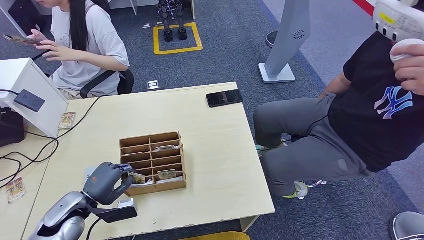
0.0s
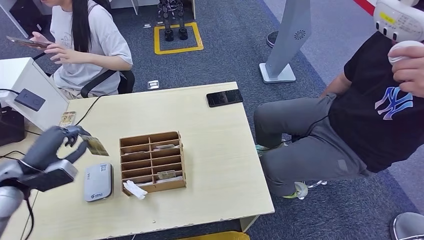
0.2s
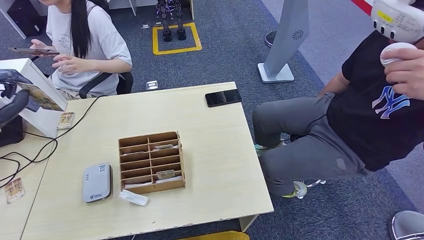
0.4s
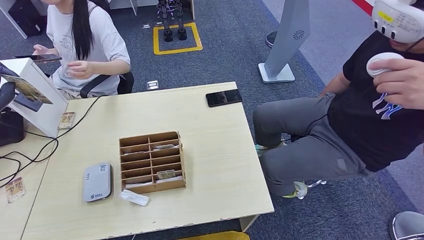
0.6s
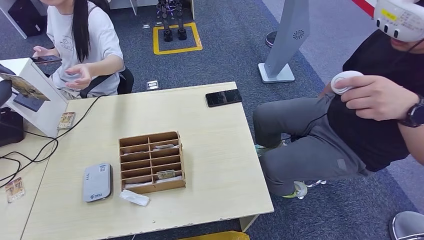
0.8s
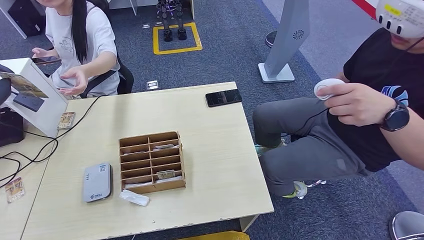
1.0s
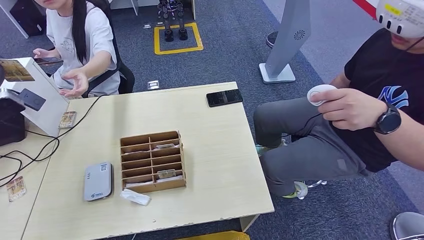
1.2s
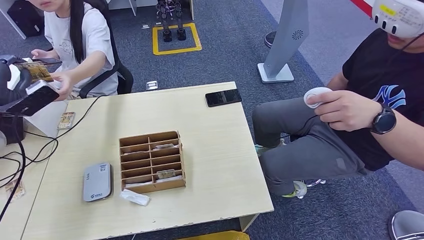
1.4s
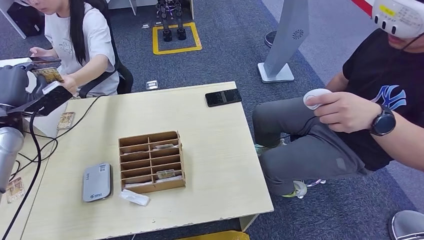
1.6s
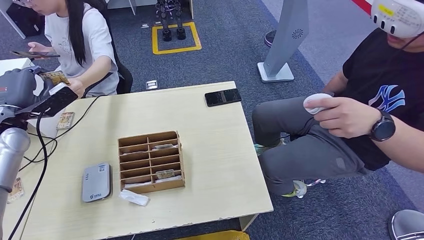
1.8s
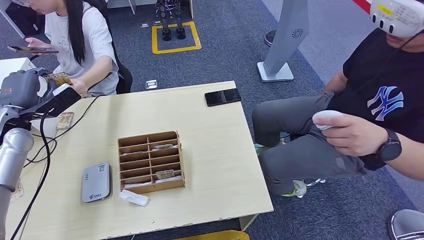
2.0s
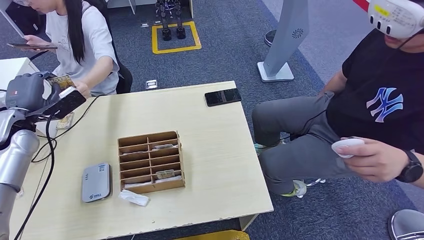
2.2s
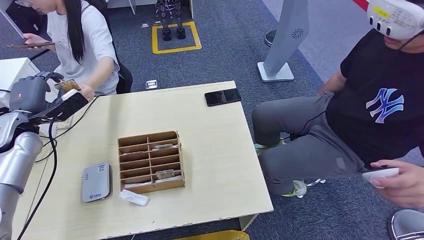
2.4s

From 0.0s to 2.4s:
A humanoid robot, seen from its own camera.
Step, from 0.4s to 2.4s: Hand the room key to the person.
From 0.0s to 1.2s: The left hand is displaced upward and to the left by about 30 cm.
